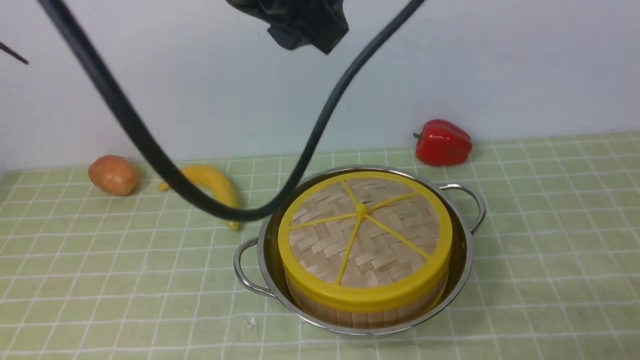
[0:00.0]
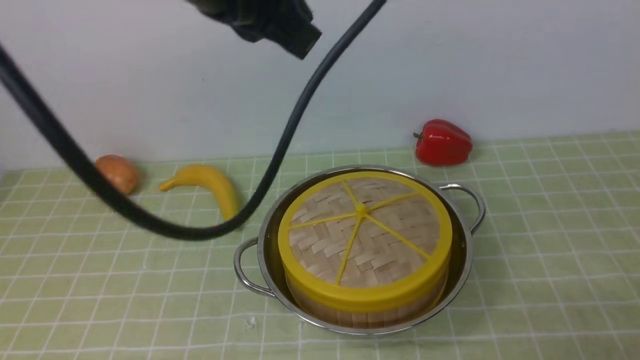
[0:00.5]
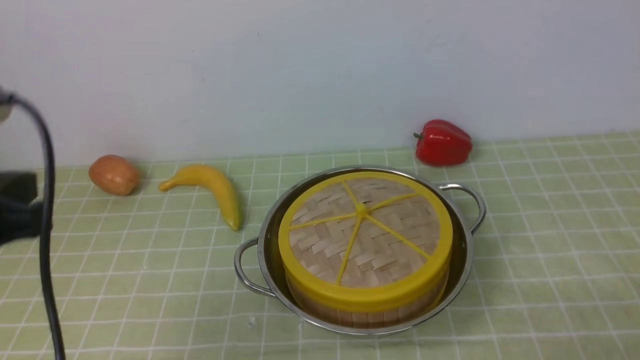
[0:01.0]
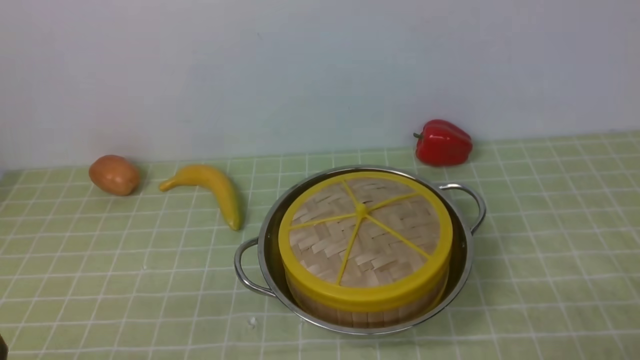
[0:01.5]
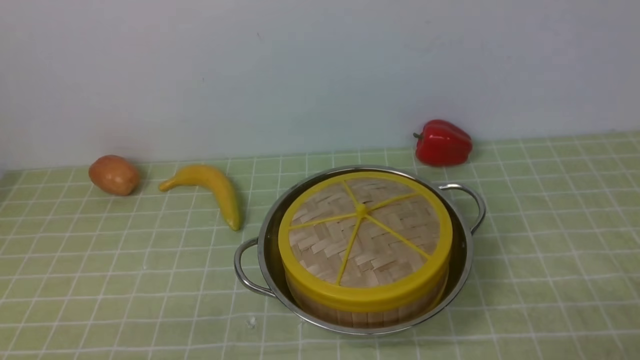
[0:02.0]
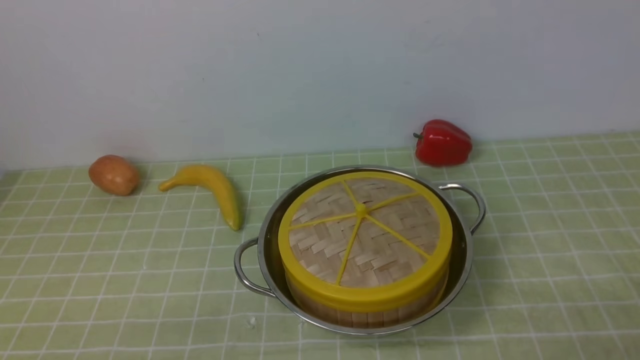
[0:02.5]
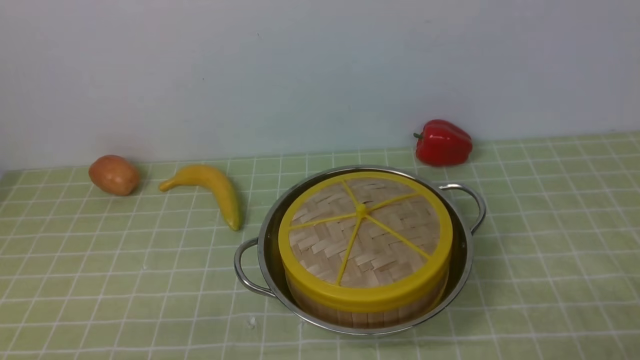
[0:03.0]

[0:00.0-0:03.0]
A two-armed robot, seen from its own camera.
Task of the whole recording: place the steamer in the pot on the green tablecloth, and put the lid on the steamer.
0:00.0 to 0:01.5: The left gripper shifts some 40 cm backward, downward and to the left, and closes its fingers.
